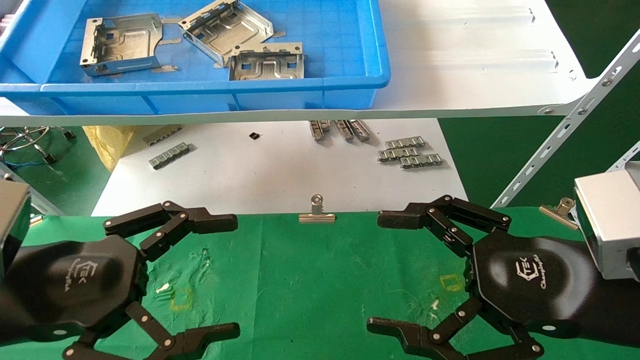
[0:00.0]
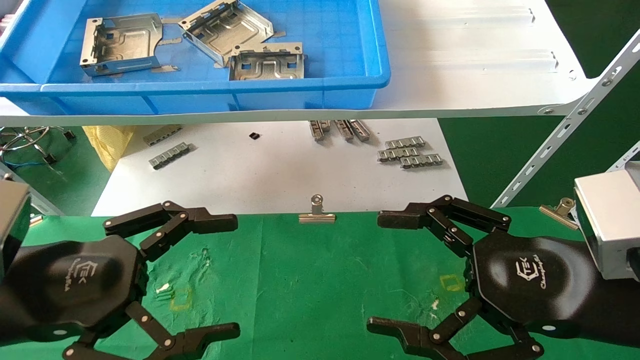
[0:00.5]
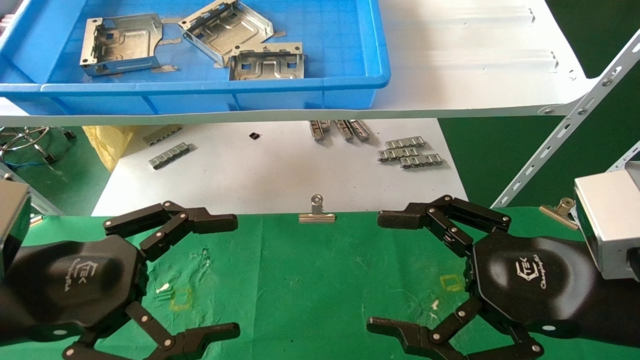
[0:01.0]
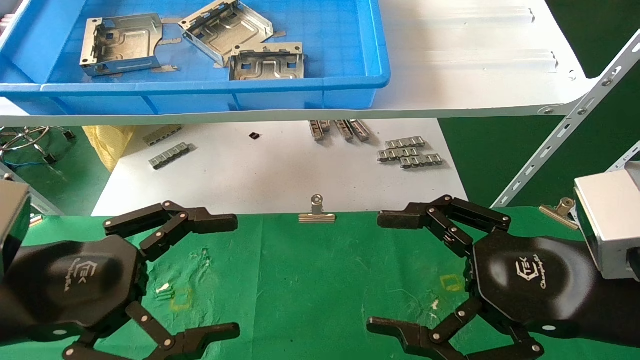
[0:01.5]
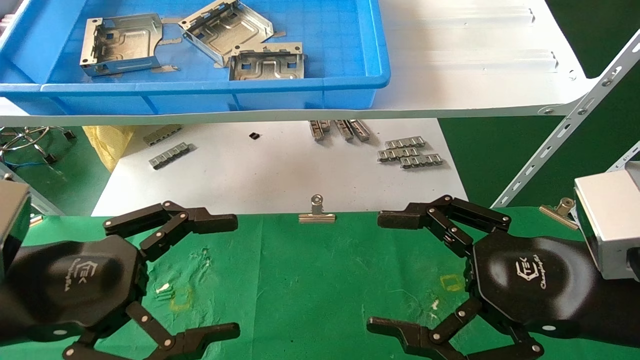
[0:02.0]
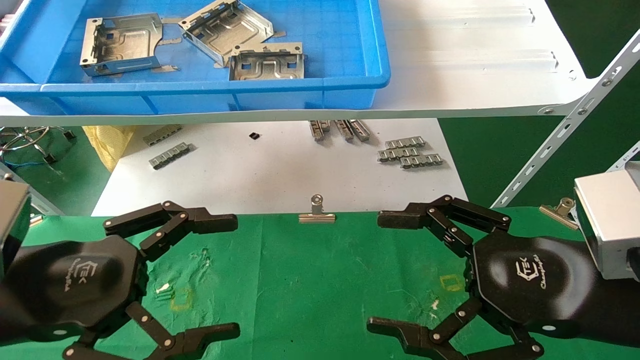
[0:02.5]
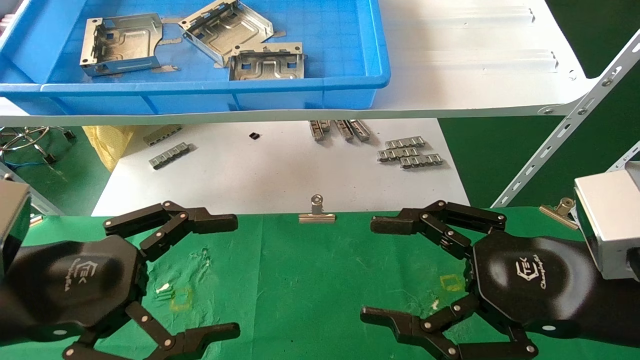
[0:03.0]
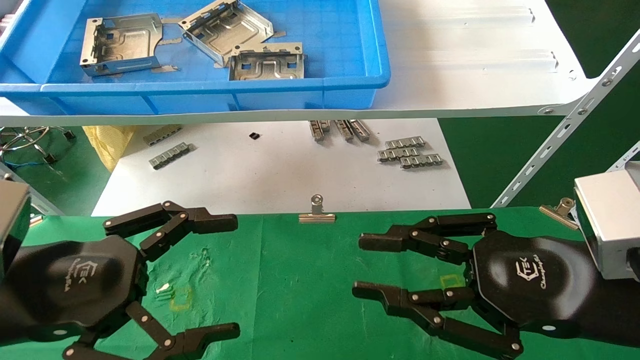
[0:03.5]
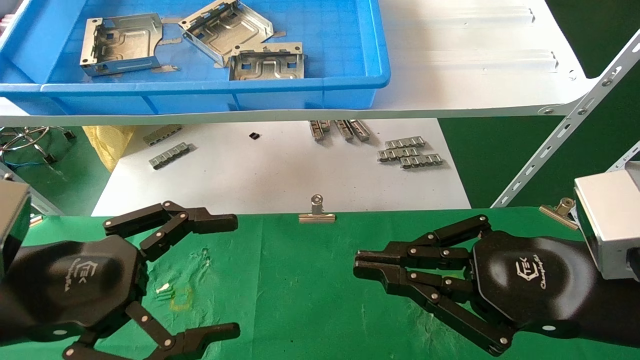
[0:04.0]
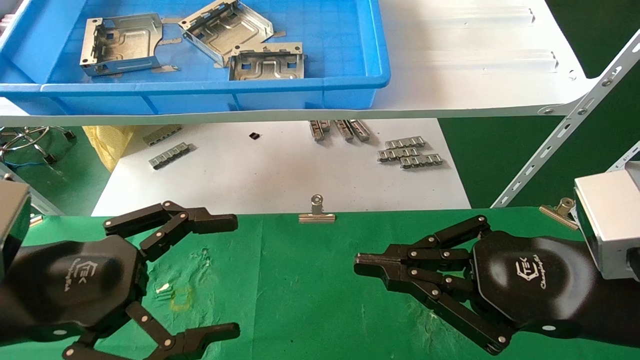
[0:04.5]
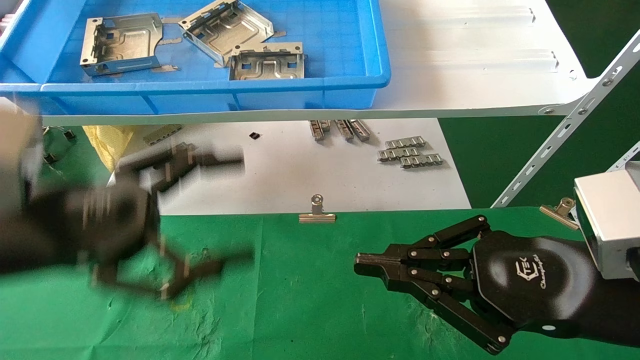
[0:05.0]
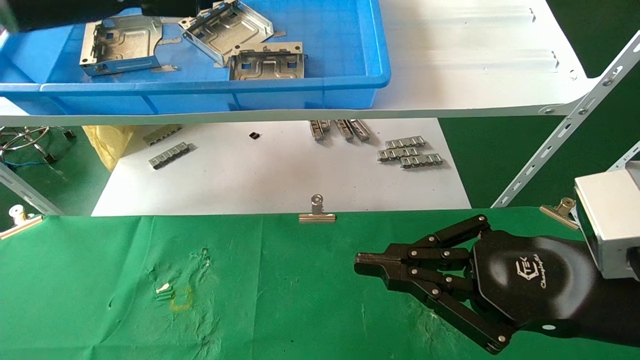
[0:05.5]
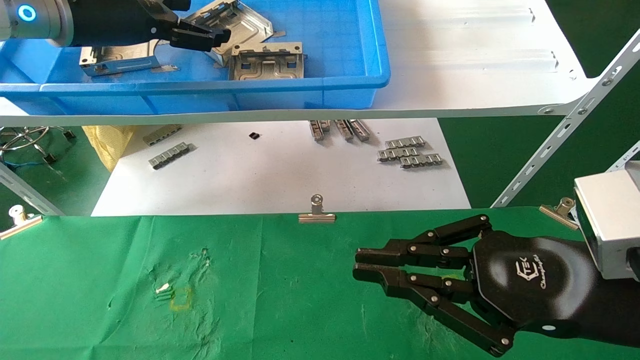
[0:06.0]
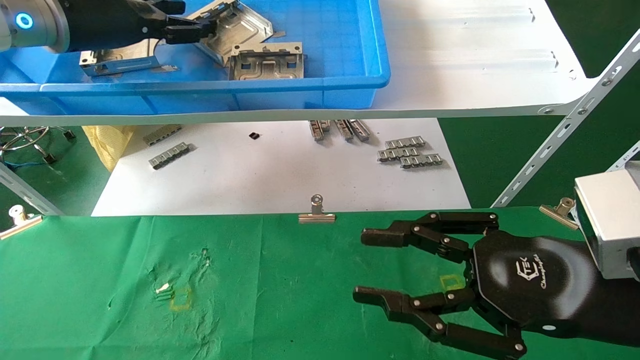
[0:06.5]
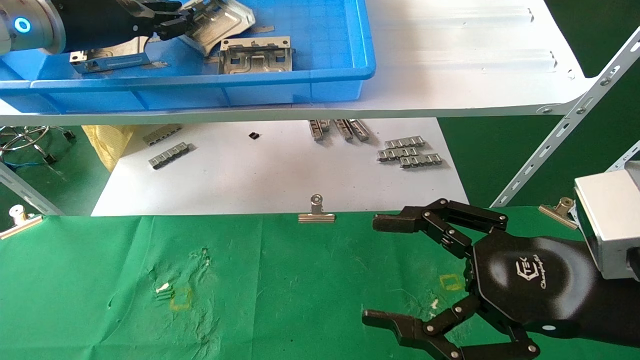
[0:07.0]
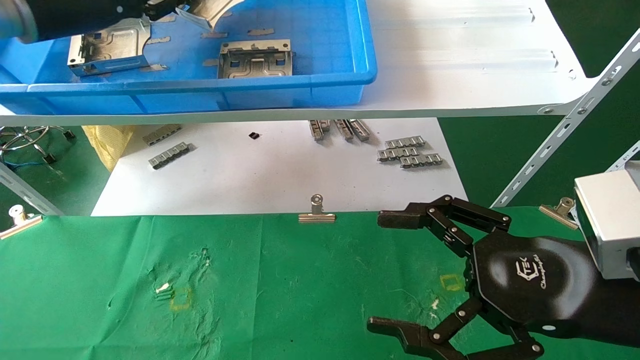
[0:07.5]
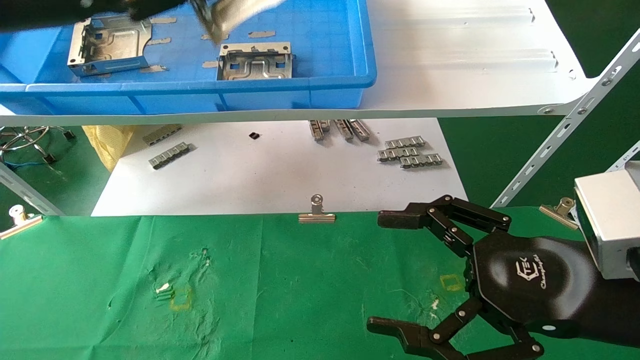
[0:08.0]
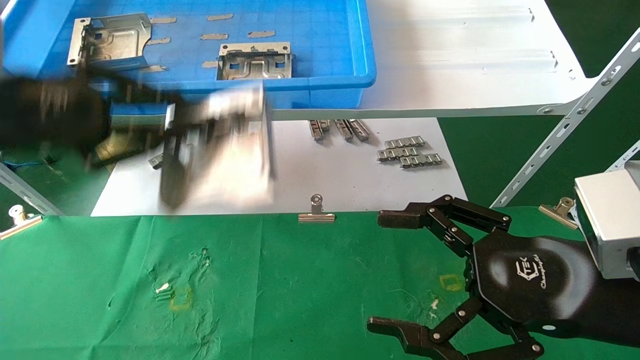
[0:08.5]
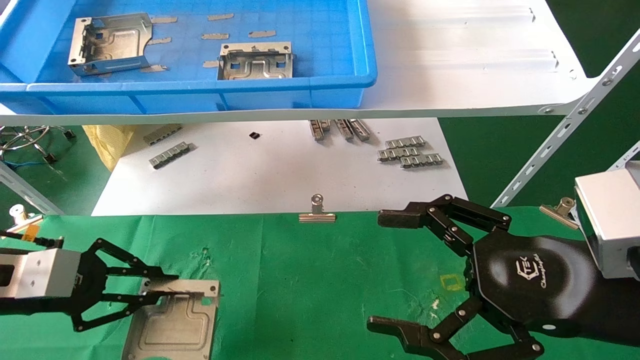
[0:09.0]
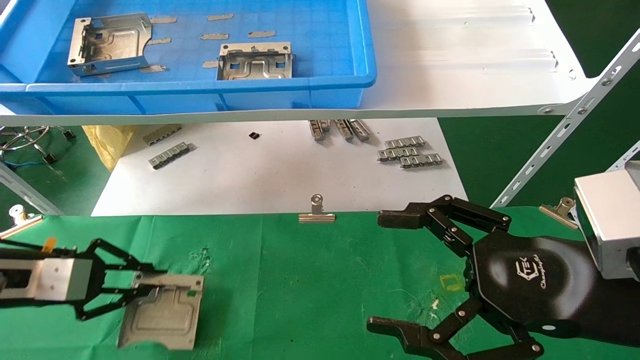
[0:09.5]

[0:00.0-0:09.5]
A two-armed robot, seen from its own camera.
Task of the whole recording: use the mechanical arm to pick up the parts and place them on the table.
Step, 0:05.5 to 0:07.0: Pick up the hard drive bracket from the feeding area.
0:00.0 to 0:02.0: The two grippers keep their place.
0:02.0 to 0:04.0: The right gripper closes.
0:04.0 to 0:05.5: The left gripper goes some 25 cm upward and forward.
0:05.5 to 0:07.5: The right gripper opens; the left gripper closes its fingers.
0:07.5 to 0:09.5: The left gripper is displaced downward by roughly 30 cm.

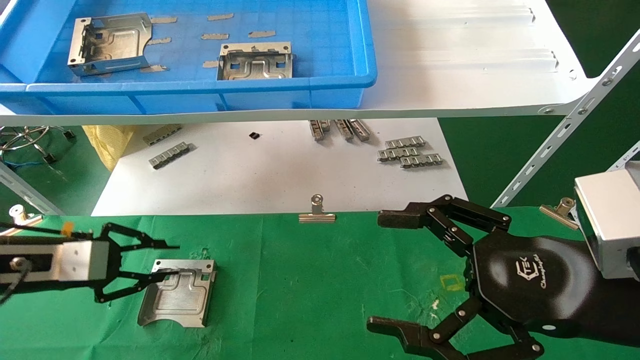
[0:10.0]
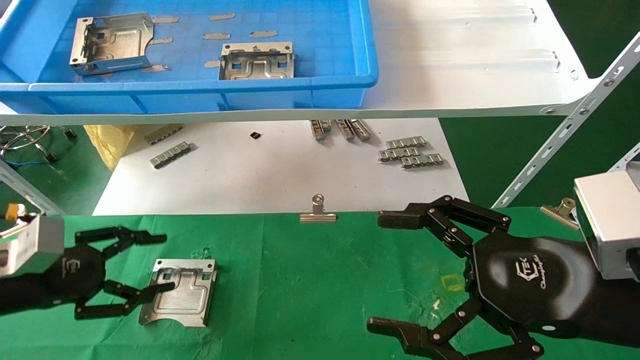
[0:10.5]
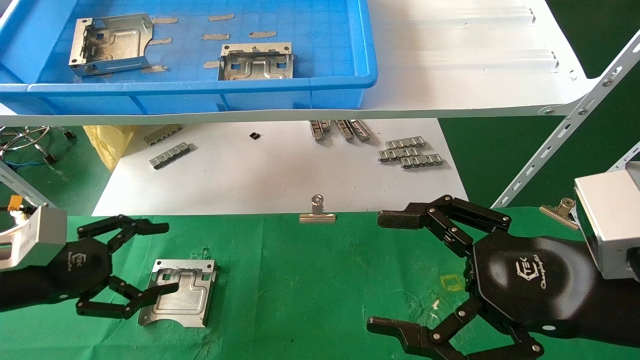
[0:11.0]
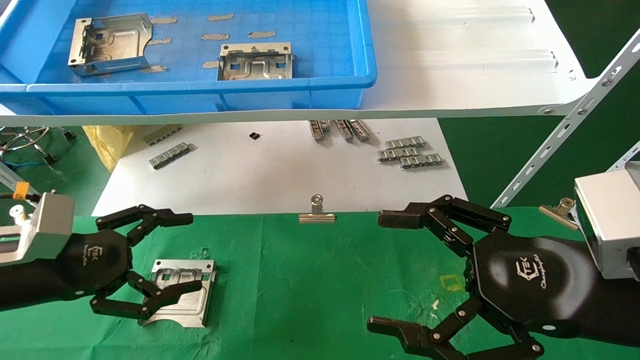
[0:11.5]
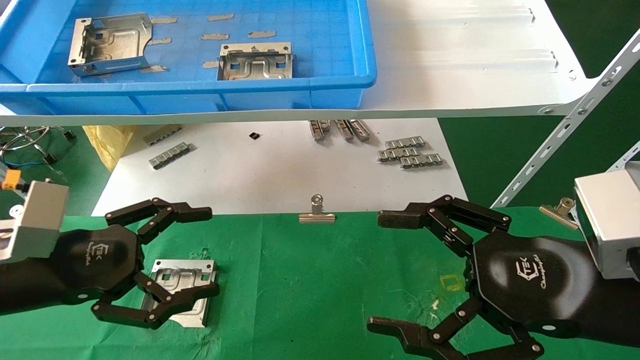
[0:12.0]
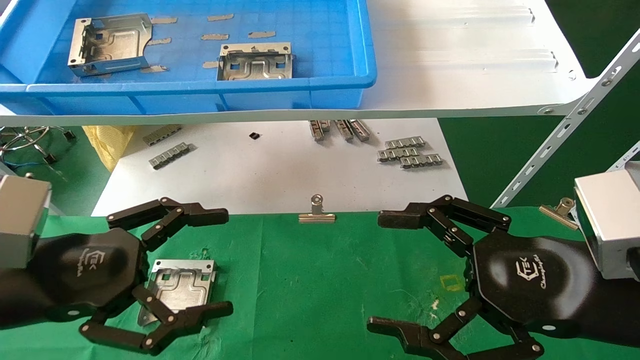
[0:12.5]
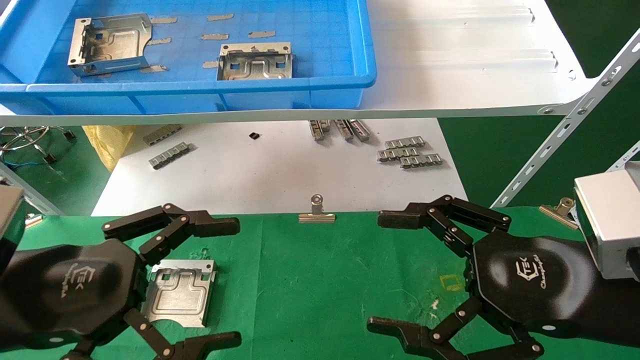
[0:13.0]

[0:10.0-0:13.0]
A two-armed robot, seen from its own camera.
Task of the whole recording: use the mechanical arm to pick up the parts and place them on the table.
0:10.0 to 0:11.5: The left gripper ends up approximately 5 cm from where it was, and opens its fingers.
0:11.5 to 0:13.0: The left gripper goes approximately 10 cm backward and to the right.
